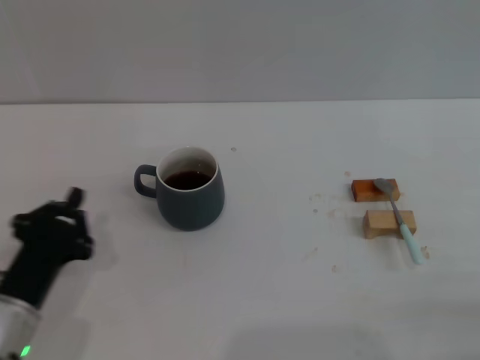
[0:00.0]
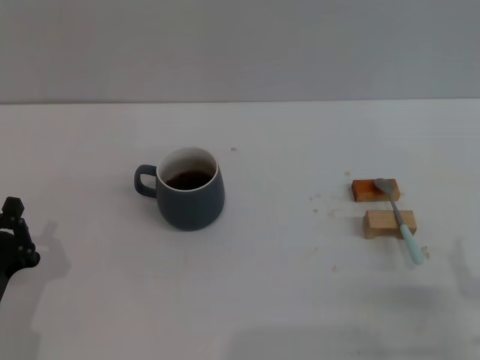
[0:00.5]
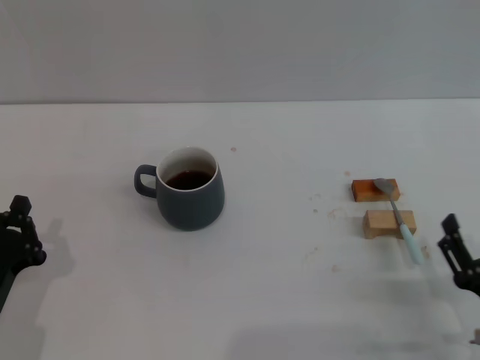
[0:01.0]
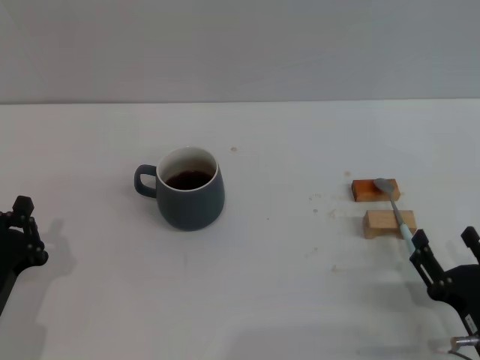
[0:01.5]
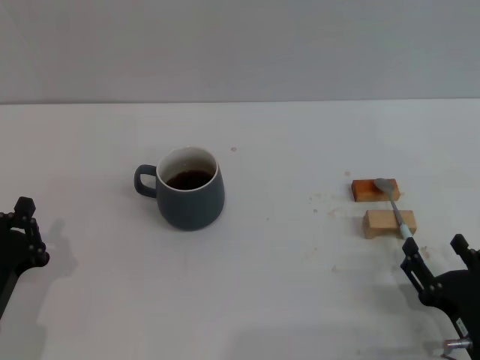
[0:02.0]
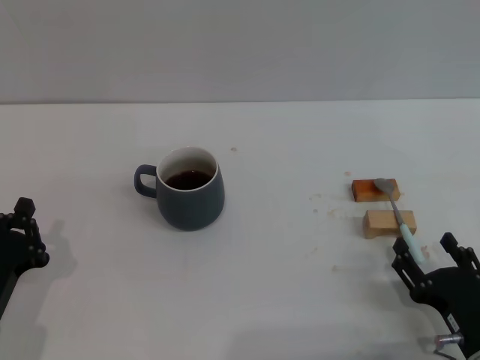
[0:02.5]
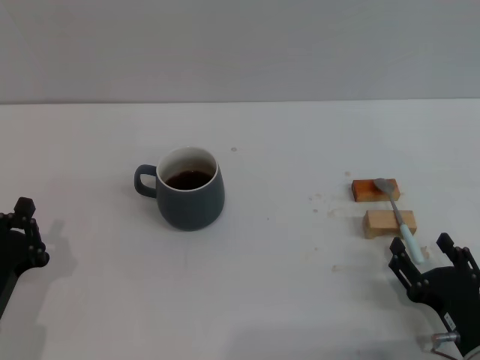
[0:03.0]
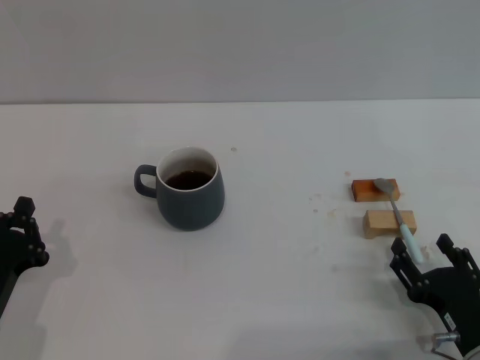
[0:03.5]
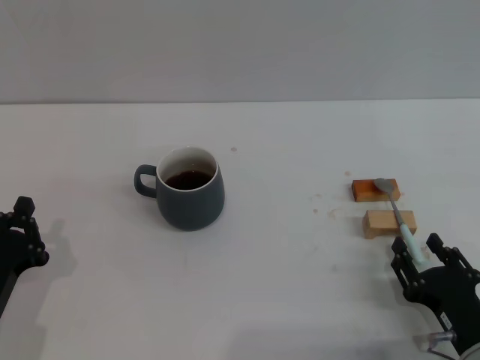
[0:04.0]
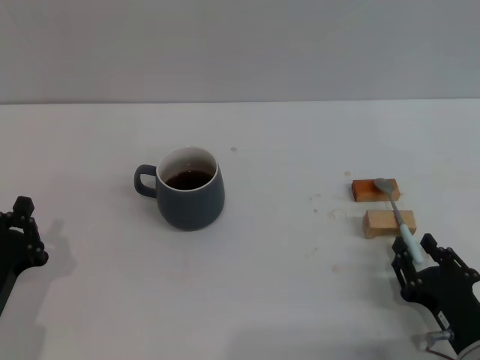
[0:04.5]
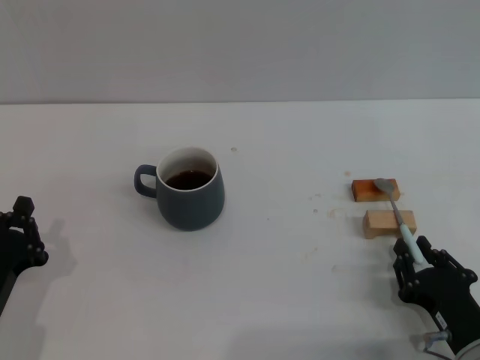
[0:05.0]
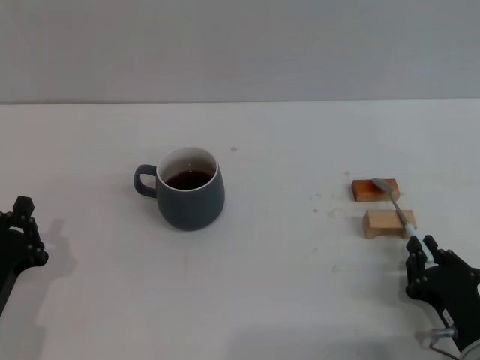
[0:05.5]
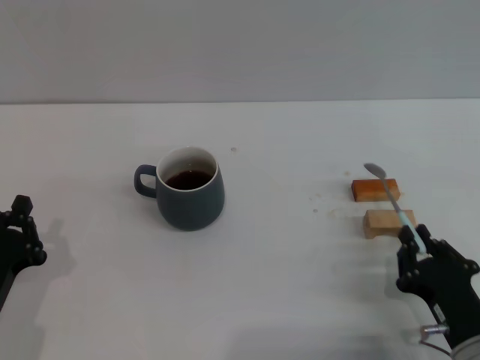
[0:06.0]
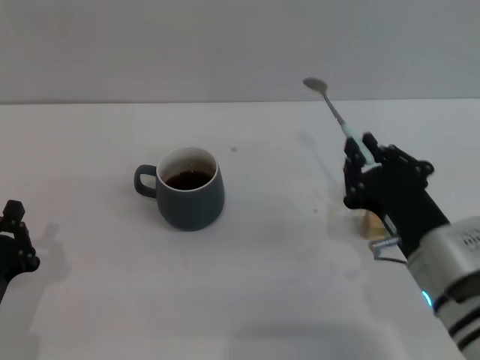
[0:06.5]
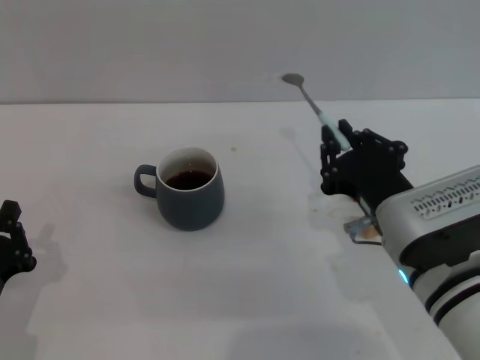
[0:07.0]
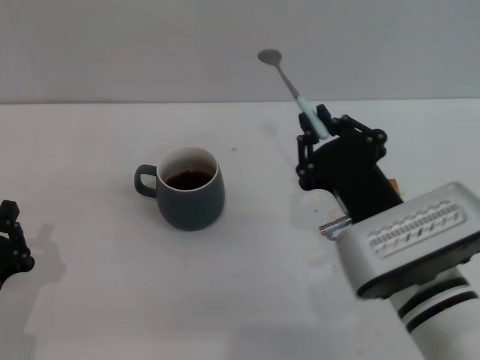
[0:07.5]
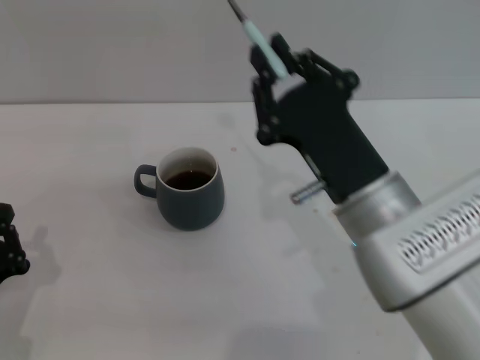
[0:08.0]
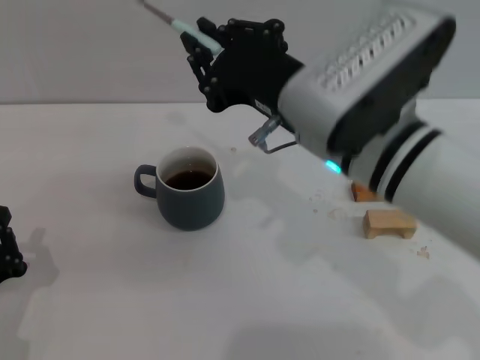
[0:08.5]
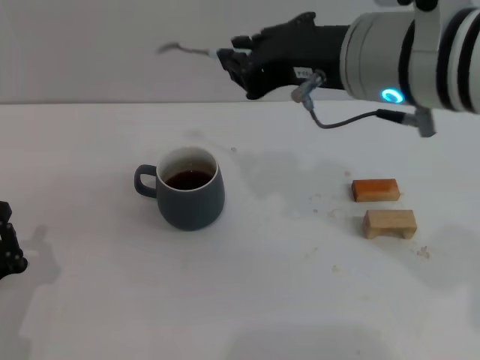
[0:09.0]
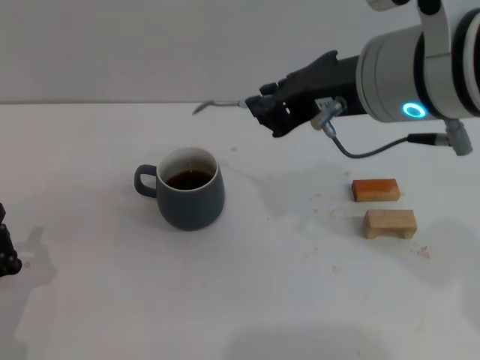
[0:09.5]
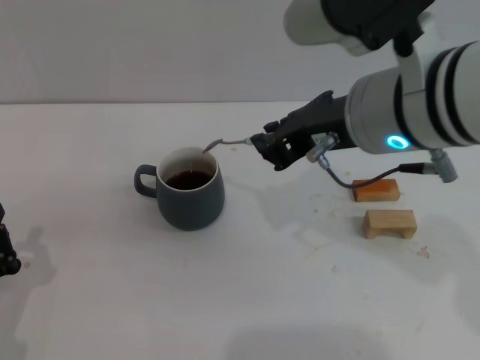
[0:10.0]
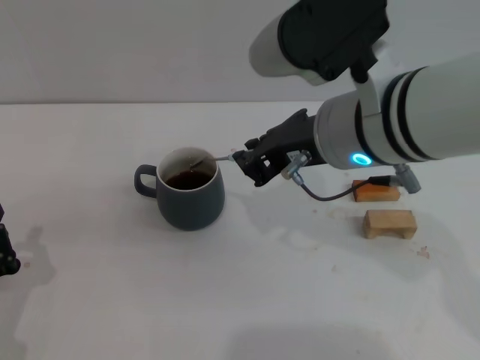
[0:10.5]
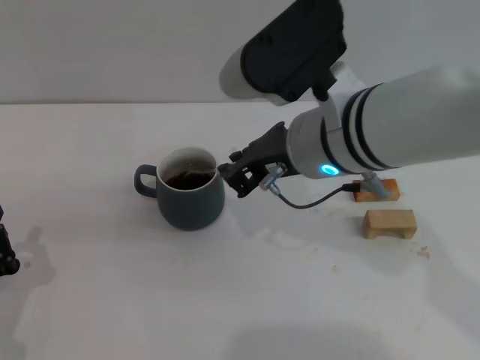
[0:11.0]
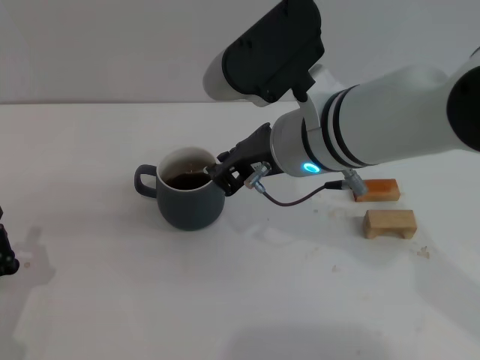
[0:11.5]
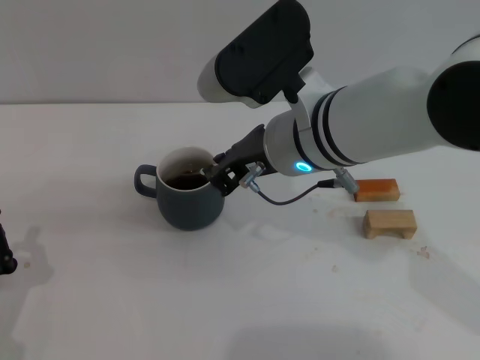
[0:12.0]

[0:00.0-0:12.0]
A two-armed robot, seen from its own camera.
Task of the whole recording: Move the grey cup to the center, lift the blue spoon, stir it three times in the cup, and put the spoon into the cup.
Step, 0:01.0 to 0:06.5: Pick up the spoon with the right gripper.
0:00.0 to 0:02.0: The right gripper shifts approximately 5 cm to the left.
0:02.0 to 0:04.0: The grippers make only small movements.
0:04.0 to 0:06.0: The right gripper closes its fingers.
0:06.0 to 0:08.0: The right gripper moves upward, to the left and forward, approximately 20 cm.
0:08.0 to 0:10.0: The right gripper shifts about 10 cm upward.
0:10.0 to 0:12.0: The right gripper is displaced downward and to the left by about 10 cm.

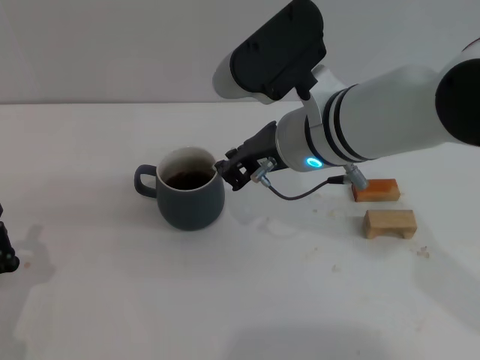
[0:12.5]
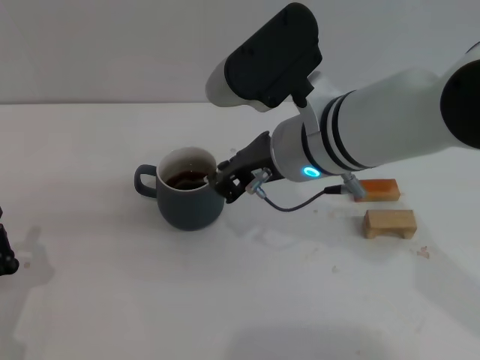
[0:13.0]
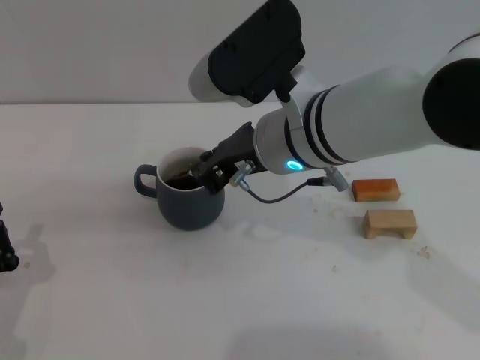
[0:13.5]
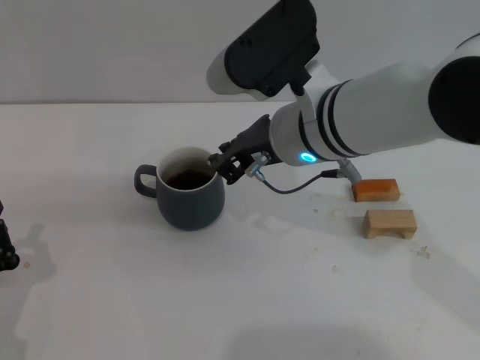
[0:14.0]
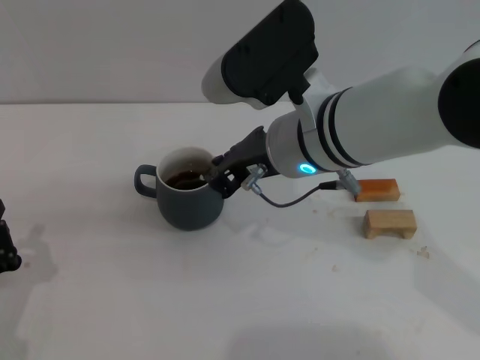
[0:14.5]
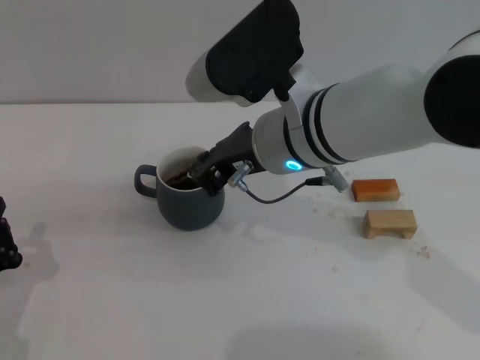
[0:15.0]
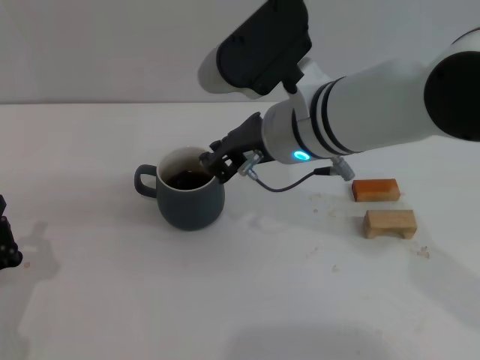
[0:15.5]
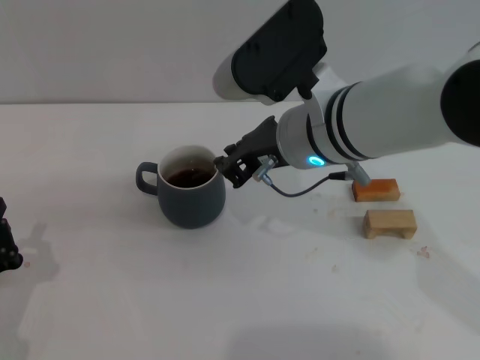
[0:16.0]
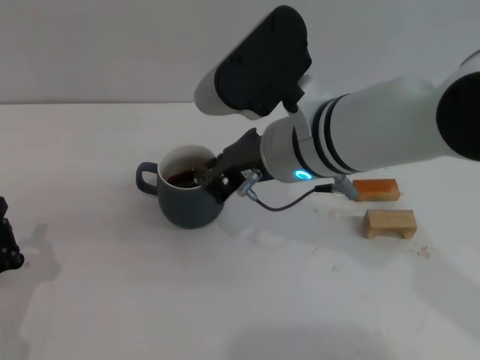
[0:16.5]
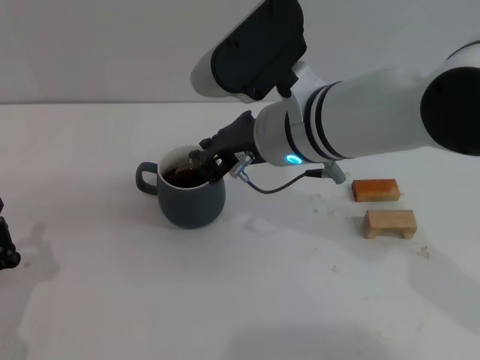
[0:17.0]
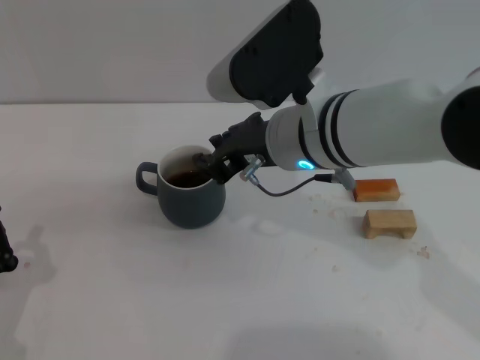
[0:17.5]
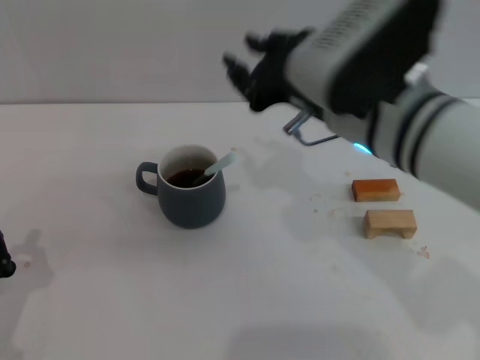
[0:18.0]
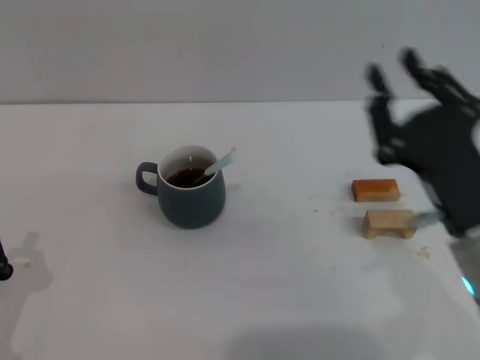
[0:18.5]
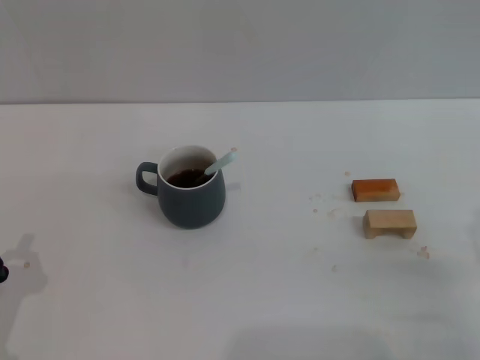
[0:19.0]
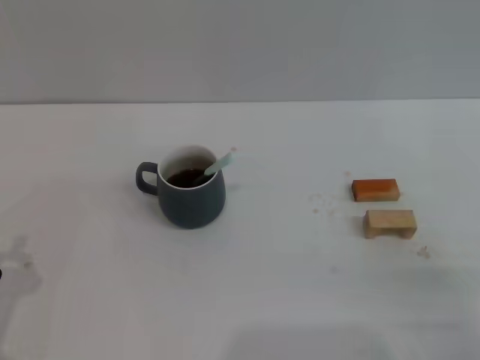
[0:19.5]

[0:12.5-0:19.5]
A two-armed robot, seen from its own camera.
Task of the whole recording: Move the grey cup to the center, lift the blue spoon, stir it three times in the cup, and put the spoon into the cup.
Step, 0:12.5 to 0:17.5: Stir the coffee in the cup with the right gripper.
0:12.5 to 0:17.5: There are only small adjustments of the grippers.
0:17.5 to 0:19.5: The right gripper travels to the right, backward and downward by about 35 cm, and opens up.
